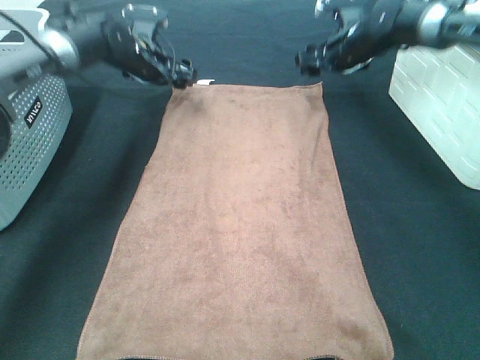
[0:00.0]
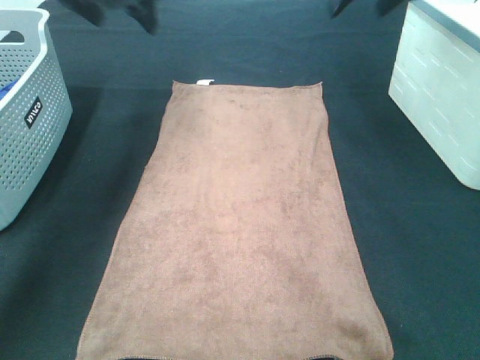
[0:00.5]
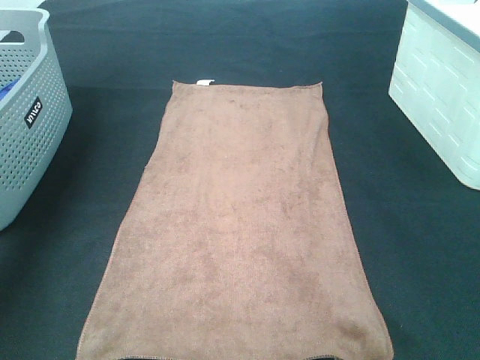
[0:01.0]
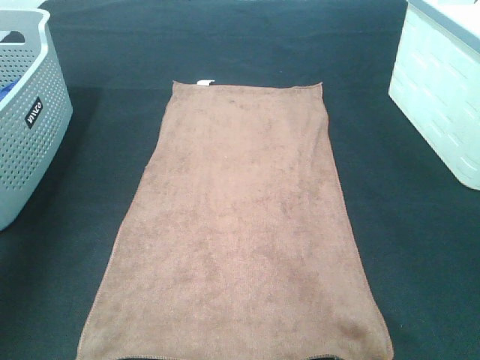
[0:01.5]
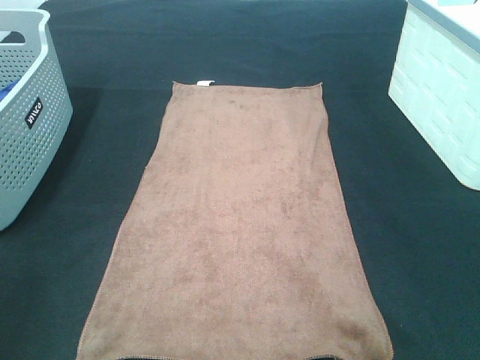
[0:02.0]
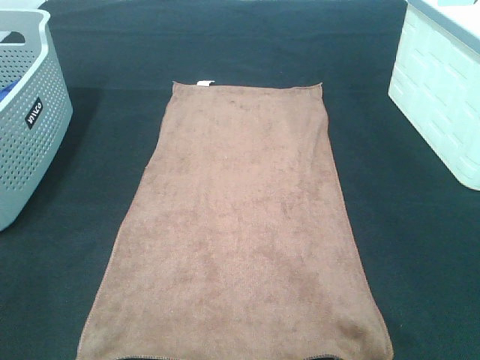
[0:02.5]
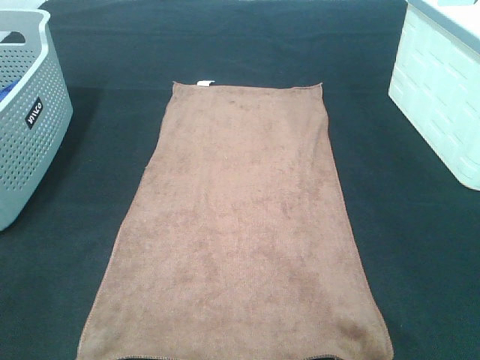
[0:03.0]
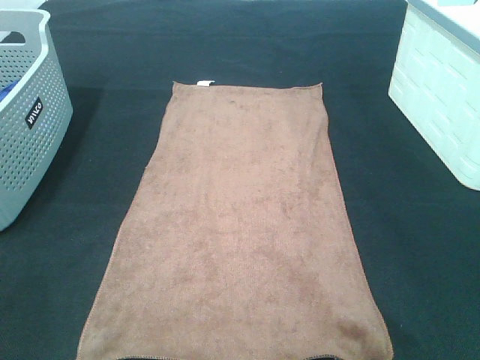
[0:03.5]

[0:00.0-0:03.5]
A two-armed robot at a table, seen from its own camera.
Task of the whole recording: Remove the towel and place it.
0:00.0 to 0:02.0: Both grippers travel together backward, roughly 50 cm.

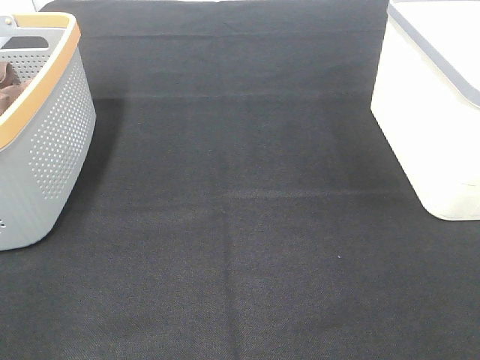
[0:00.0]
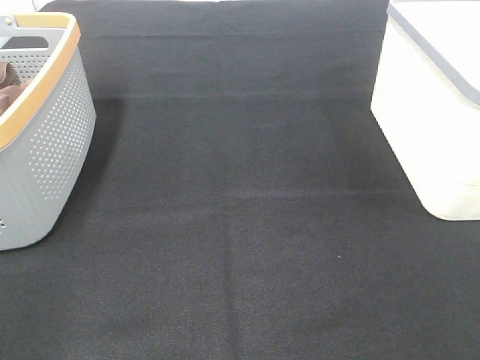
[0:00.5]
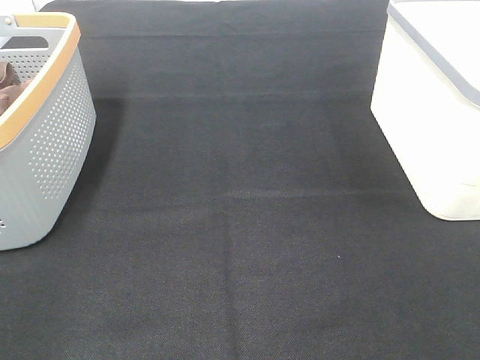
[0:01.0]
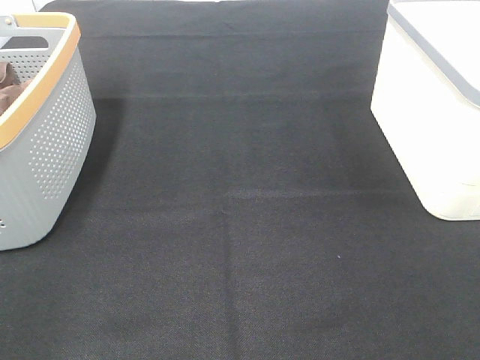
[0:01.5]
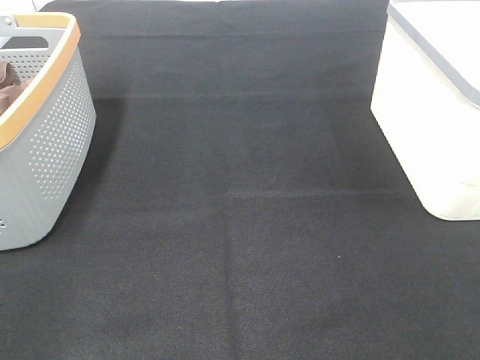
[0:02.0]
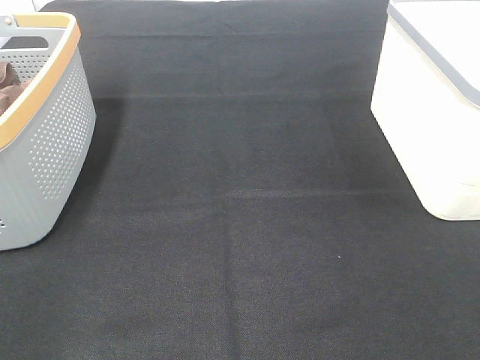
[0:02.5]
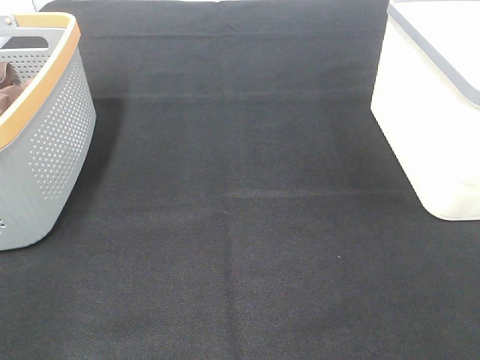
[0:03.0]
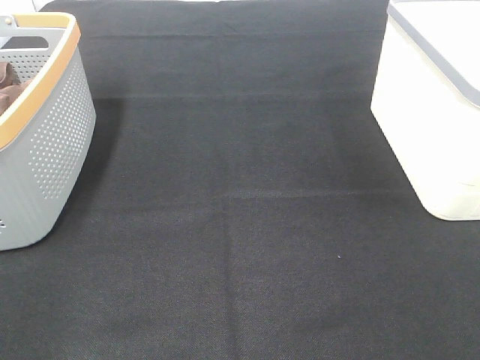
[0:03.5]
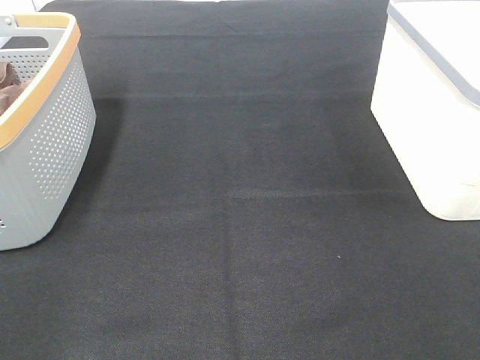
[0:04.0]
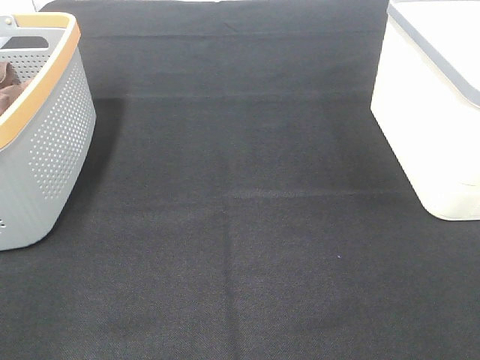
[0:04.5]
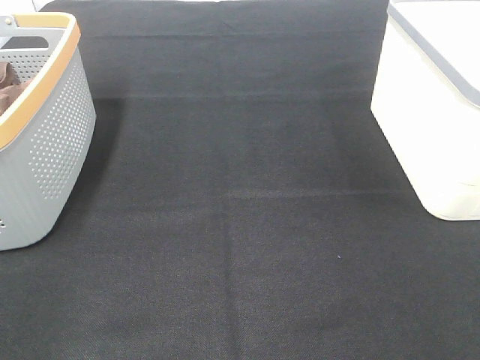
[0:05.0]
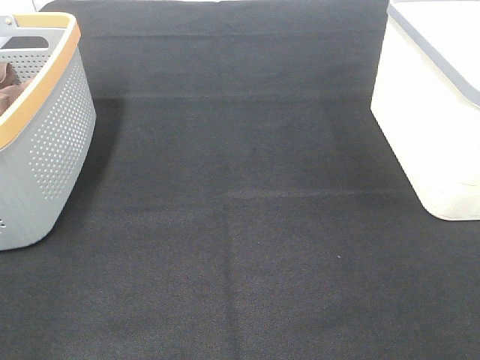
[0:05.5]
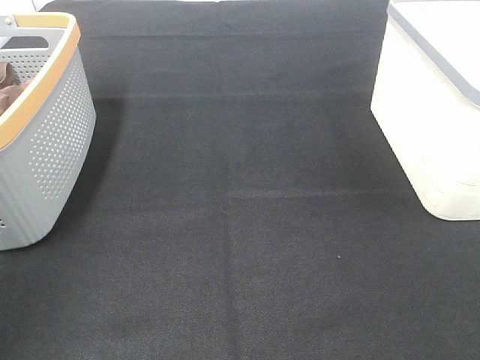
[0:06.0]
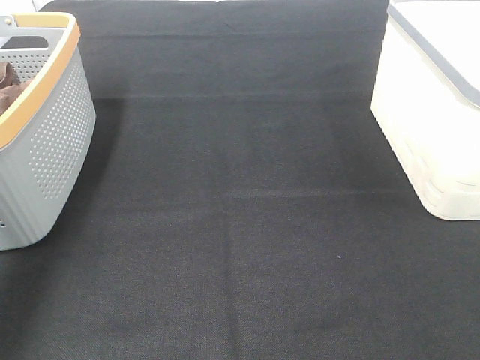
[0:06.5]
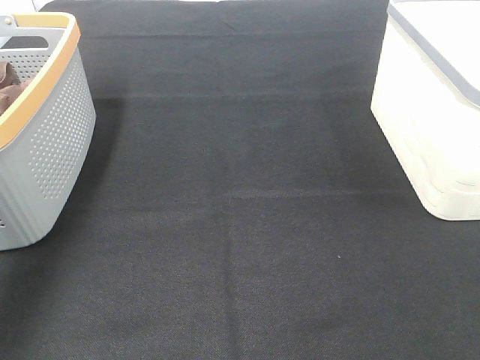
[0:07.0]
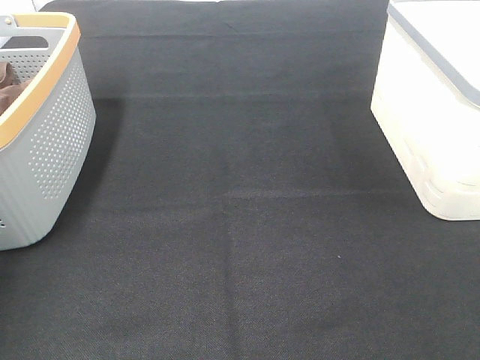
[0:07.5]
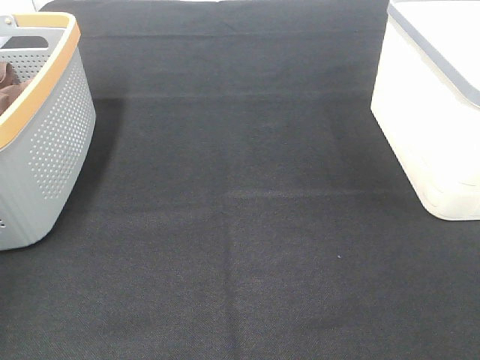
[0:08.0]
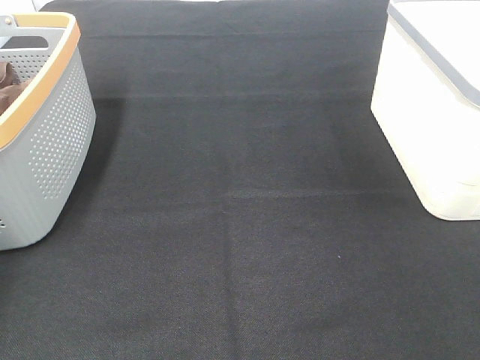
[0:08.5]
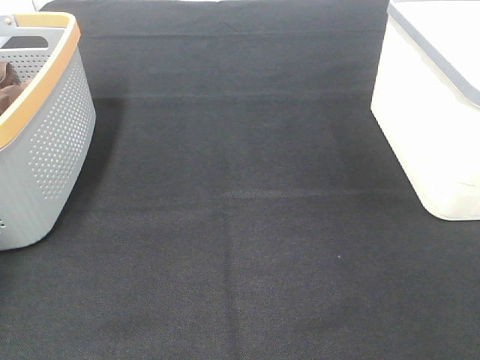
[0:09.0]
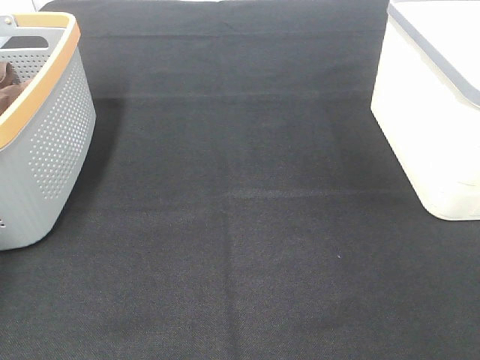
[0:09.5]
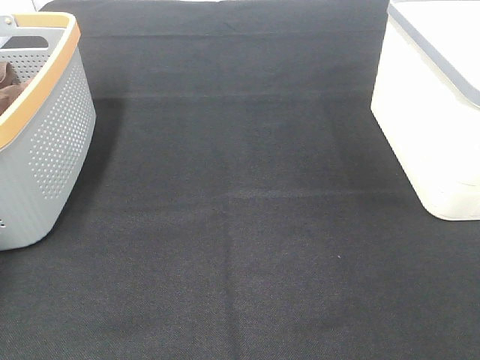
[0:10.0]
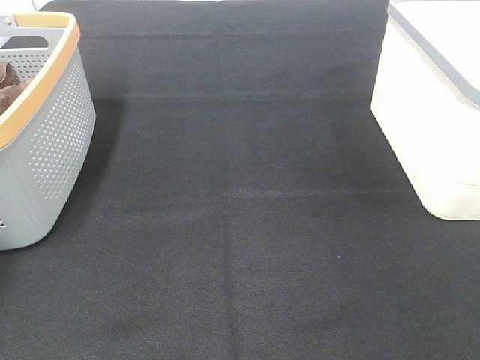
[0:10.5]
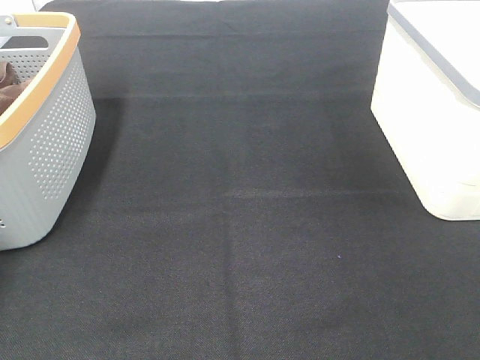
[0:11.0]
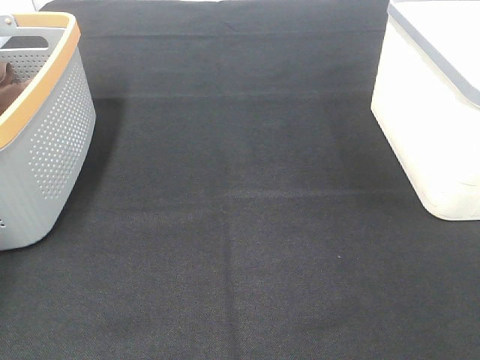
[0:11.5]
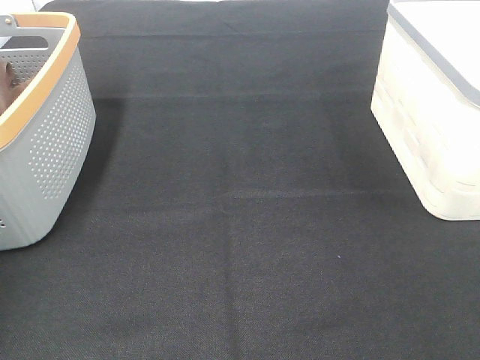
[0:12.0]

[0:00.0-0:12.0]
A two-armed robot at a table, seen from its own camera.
Task of the whole recording: Remove the towel and place it.
0:00.0 to 0:04.0: Neither gripper changes place.
0:10.0 to 0:12.0: The left gripper travels upward by approximately 25 cm, and closes up.

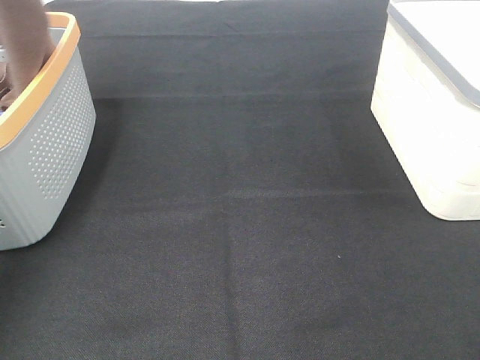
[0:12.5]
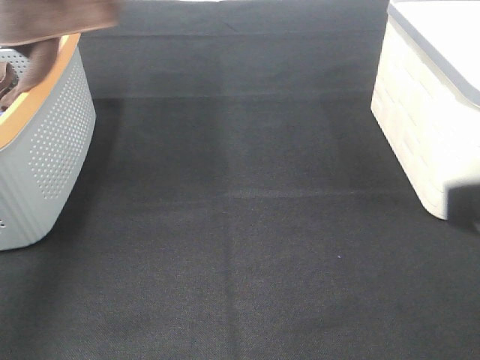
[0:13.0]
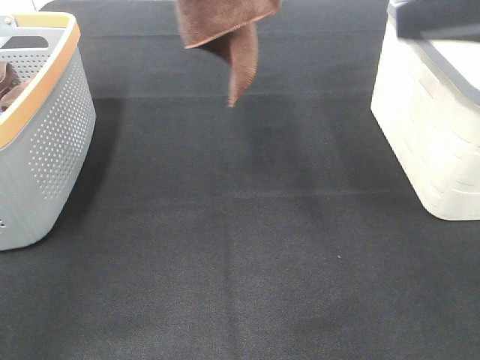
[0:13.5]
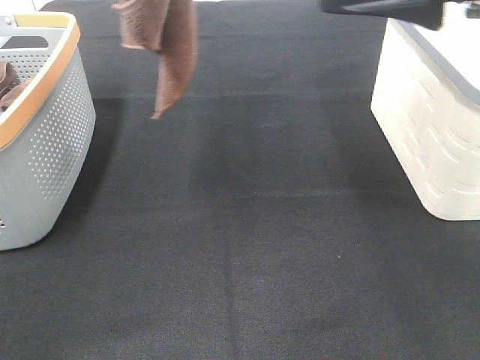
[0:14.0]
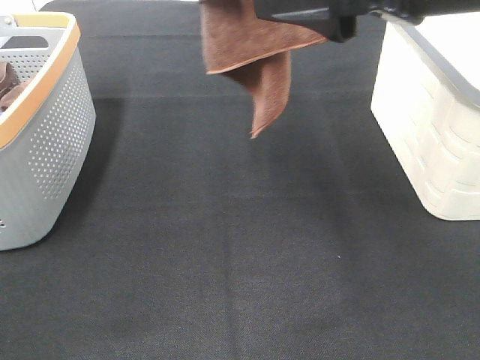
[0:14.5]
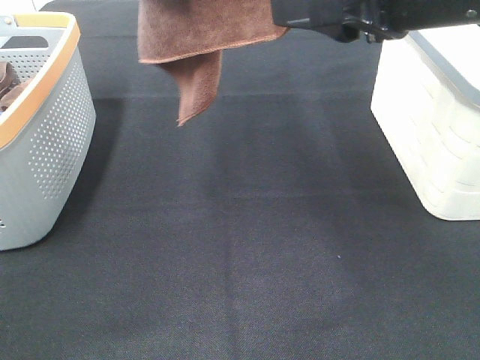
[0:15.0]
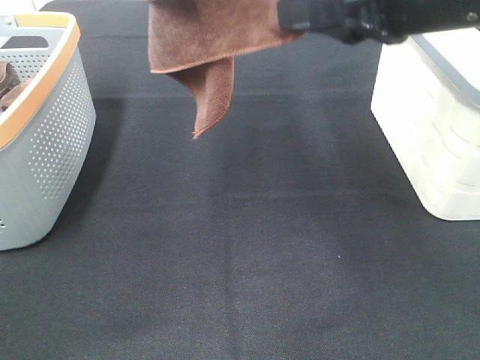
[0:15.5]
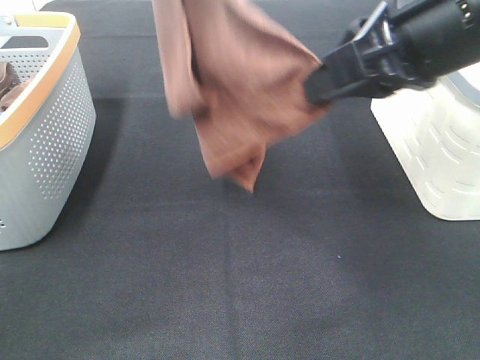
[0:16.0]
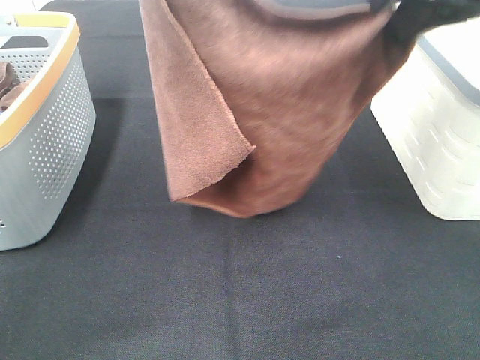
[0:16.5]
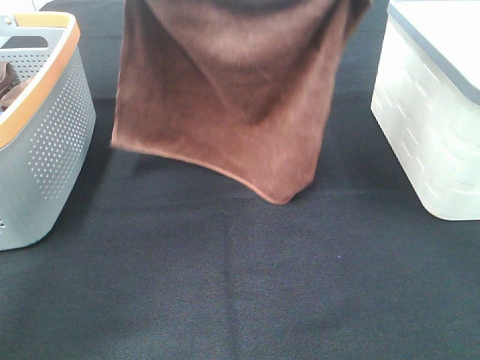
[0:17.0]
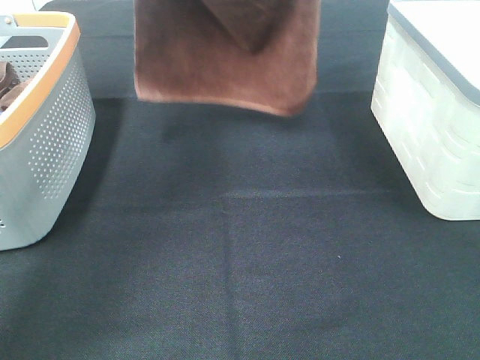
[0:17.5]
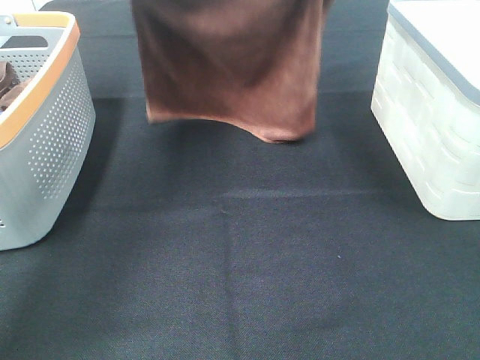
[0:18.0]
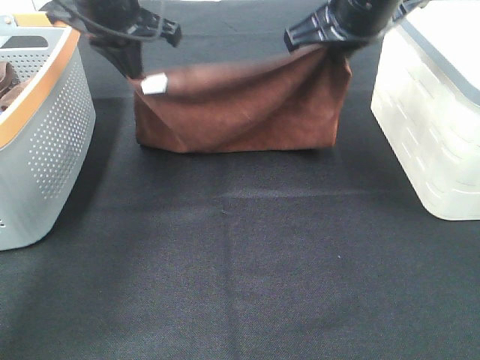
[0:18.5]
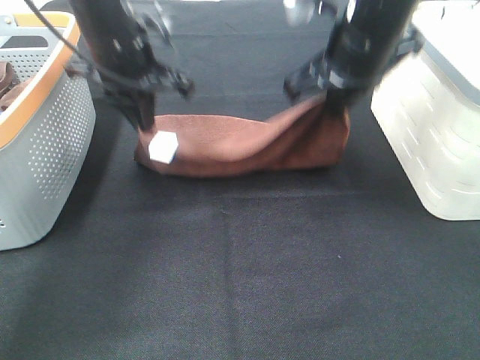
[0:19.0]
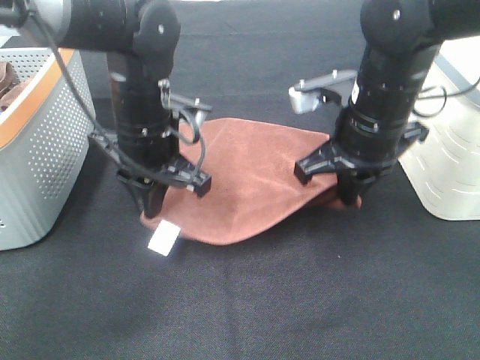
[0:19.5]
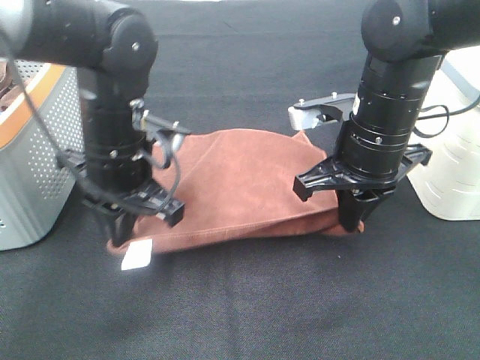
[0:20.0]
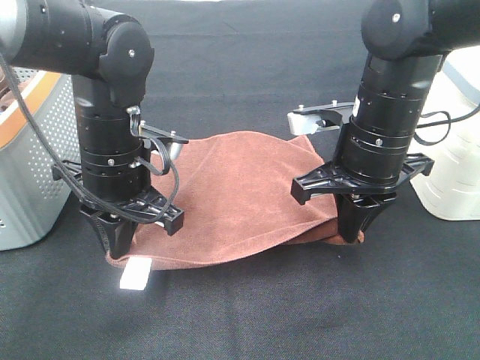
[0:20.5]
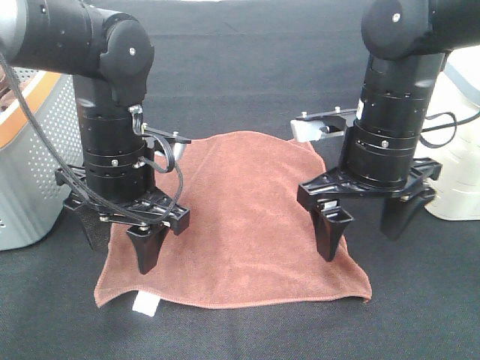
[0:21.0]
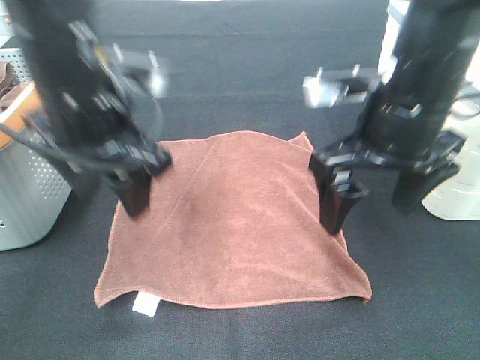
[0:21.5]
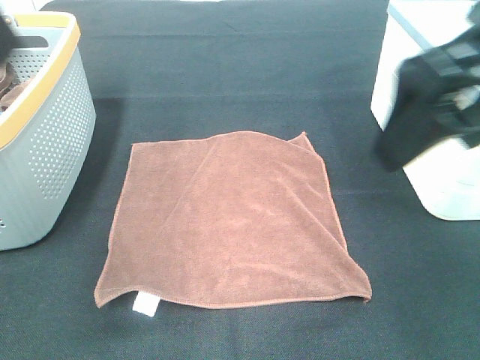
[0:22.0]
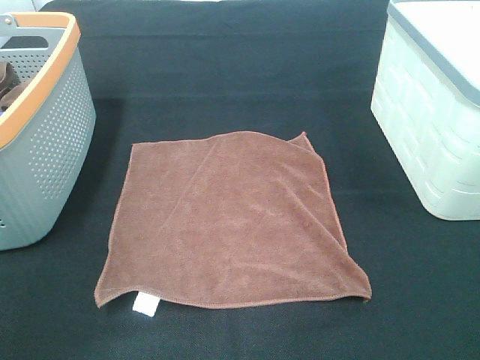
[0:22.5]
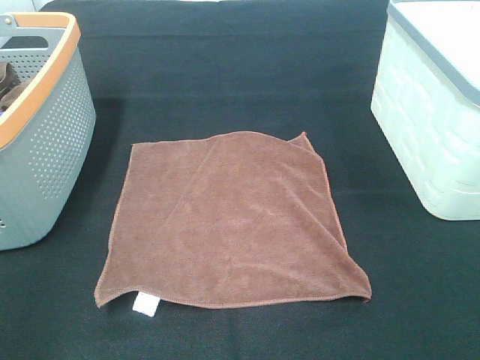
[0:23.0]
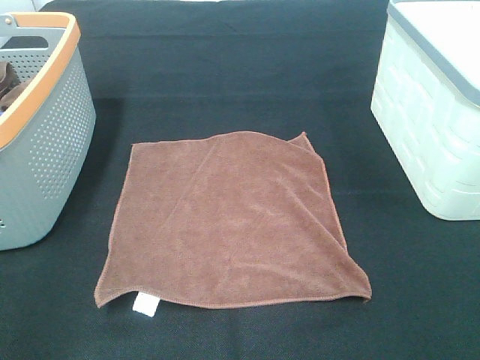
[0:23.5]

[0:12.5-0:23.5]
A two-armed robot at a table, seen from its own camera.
Task of the whole recording: Remove the towel and place it.
Step, 0:14.0 to 0:16.5: Left hand: spread the brown towel flat on the table.
Step, 0:14.0 to 0:16.5: Right hand: spread the brown towel flat on the table.
0:12.5 to 0:14.5: The left gripper travels to the right by about 20 cm; the right gripper is displaced forward and to the left by about 25 cm.
0:14.5 to 0:16.0: The left gripper moves downward, some 5 cm. Meanwhile the right gripper closes its fingers.
0:16.0 to 0:18.0: The left gripper shifts some 20 cm downward and forward; the right gripper heads forward, covering roughly 15 cm.
0:18.0 to 0:20.0: Both grippers move downward and backward, about 20 cm.
0:20.0 to 0:21.5: The left gripper goes approximately 10 cm upward, and opens; the right gripper moves upward, about 5 cm, and opens its fingers.
0:21.5 to 0:23.5: The left gripper shifts approximately 30 cm backward and to the left. The right gripper heads backward and to the right, covering roughly 30 cm.
